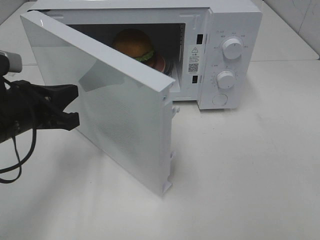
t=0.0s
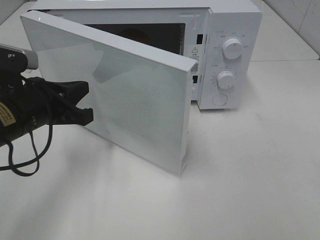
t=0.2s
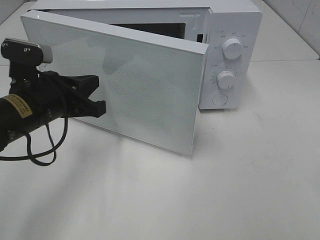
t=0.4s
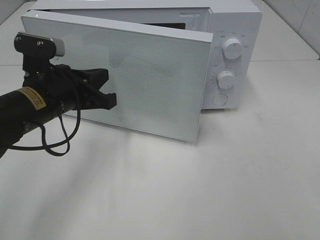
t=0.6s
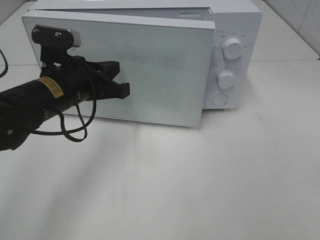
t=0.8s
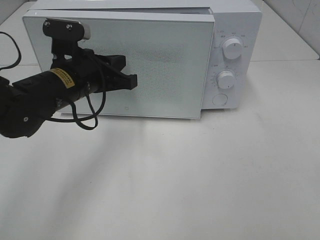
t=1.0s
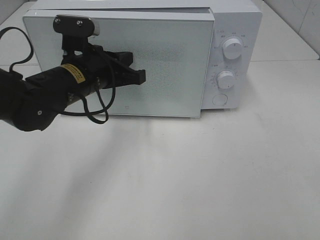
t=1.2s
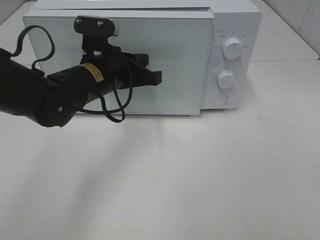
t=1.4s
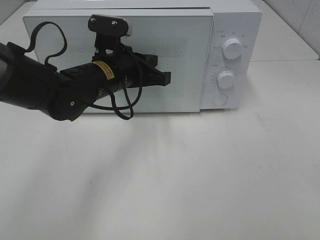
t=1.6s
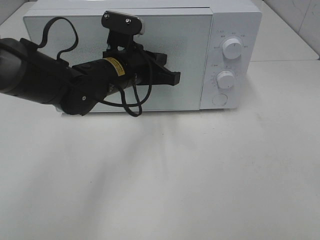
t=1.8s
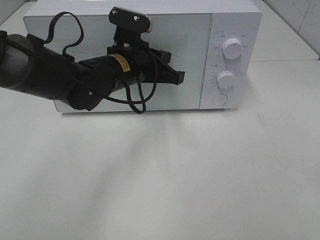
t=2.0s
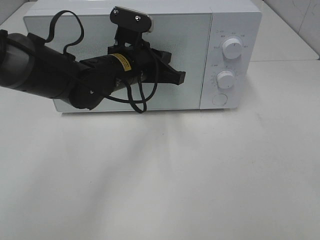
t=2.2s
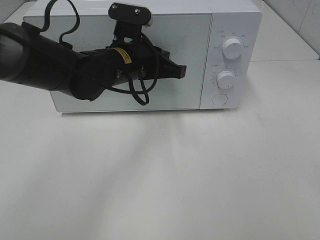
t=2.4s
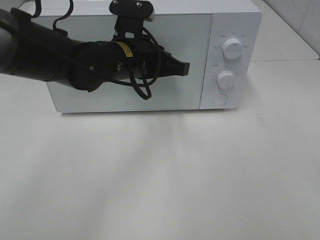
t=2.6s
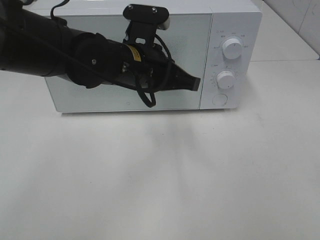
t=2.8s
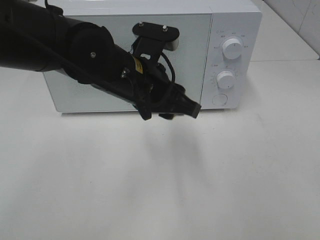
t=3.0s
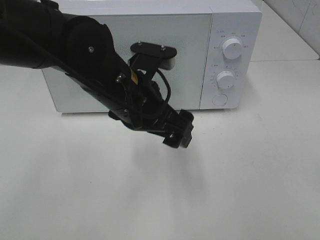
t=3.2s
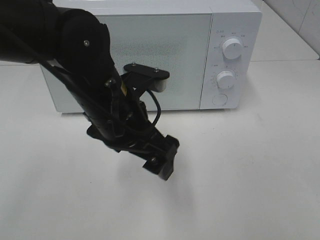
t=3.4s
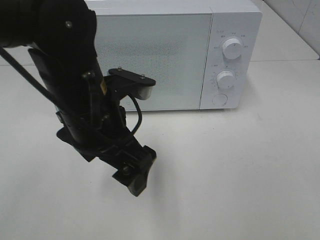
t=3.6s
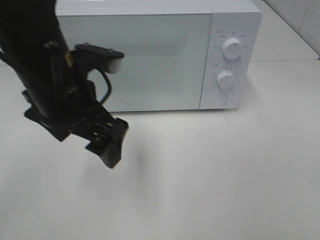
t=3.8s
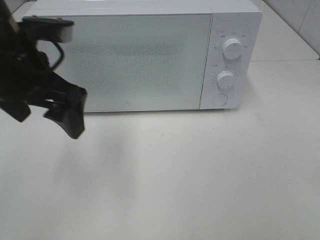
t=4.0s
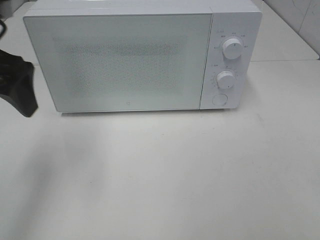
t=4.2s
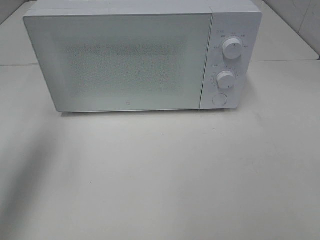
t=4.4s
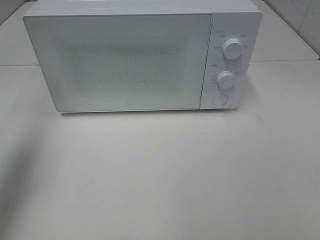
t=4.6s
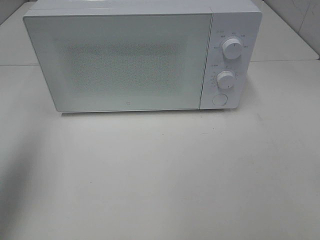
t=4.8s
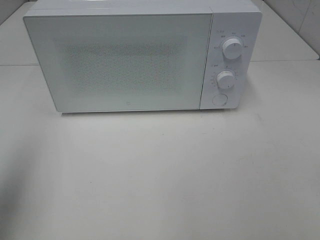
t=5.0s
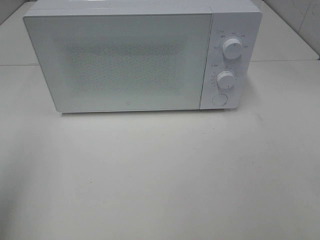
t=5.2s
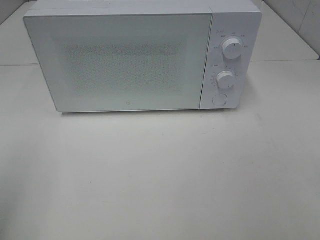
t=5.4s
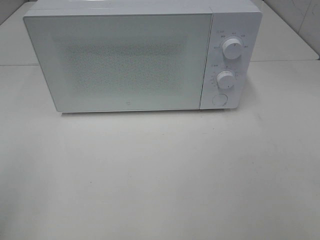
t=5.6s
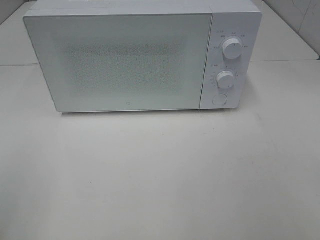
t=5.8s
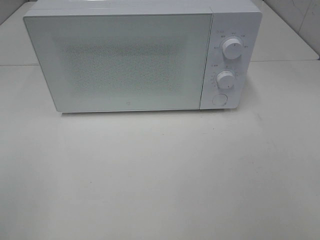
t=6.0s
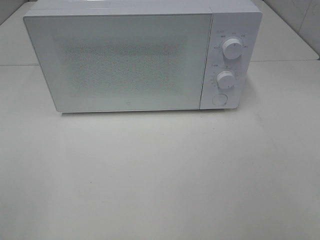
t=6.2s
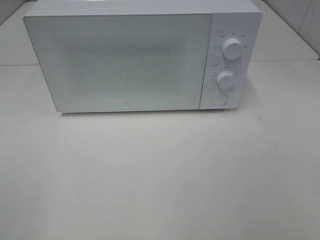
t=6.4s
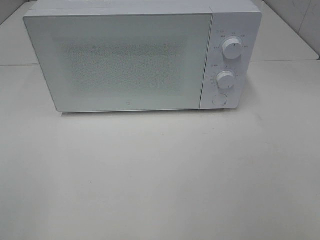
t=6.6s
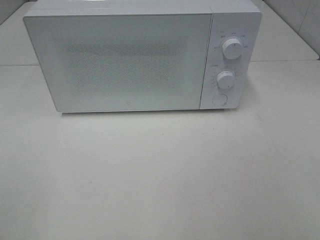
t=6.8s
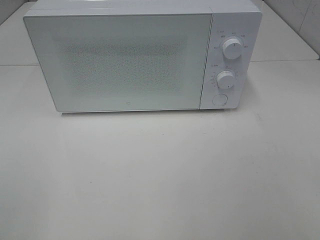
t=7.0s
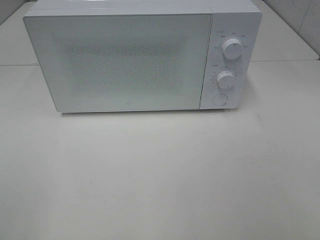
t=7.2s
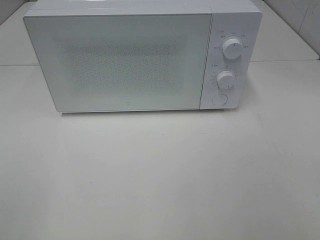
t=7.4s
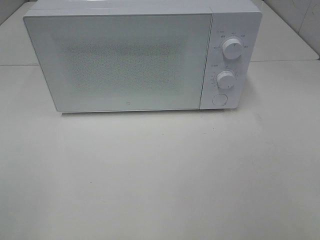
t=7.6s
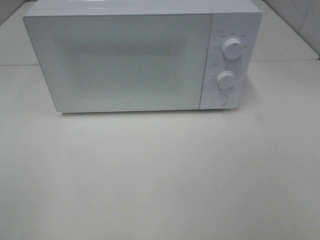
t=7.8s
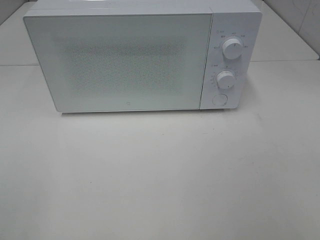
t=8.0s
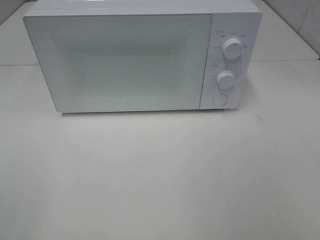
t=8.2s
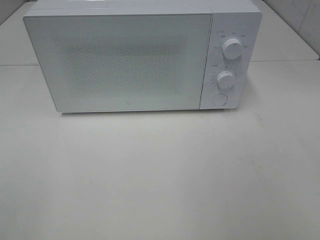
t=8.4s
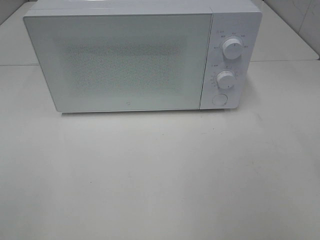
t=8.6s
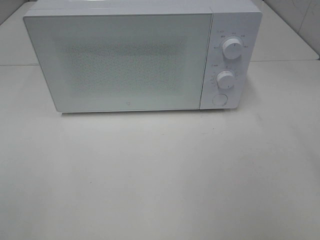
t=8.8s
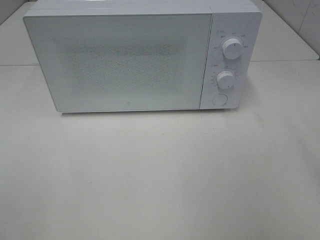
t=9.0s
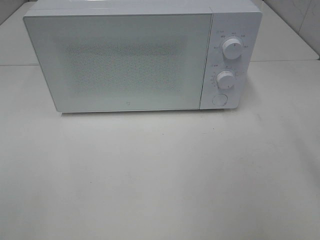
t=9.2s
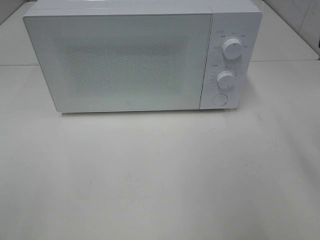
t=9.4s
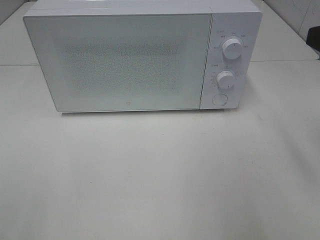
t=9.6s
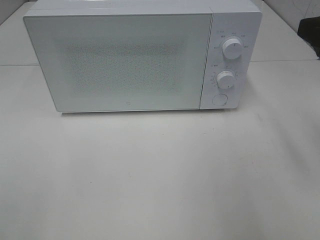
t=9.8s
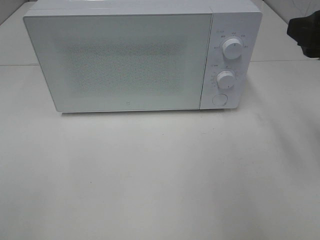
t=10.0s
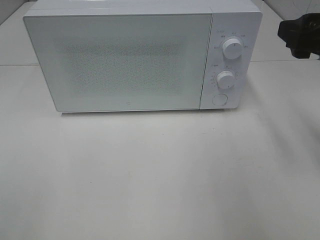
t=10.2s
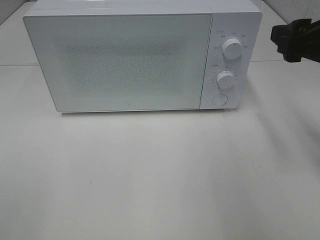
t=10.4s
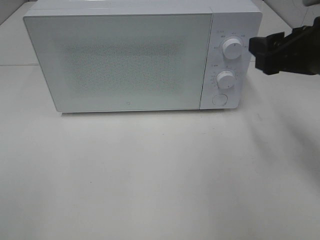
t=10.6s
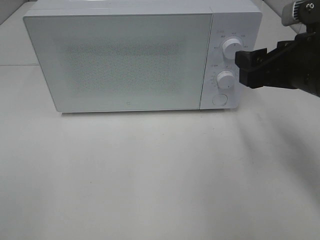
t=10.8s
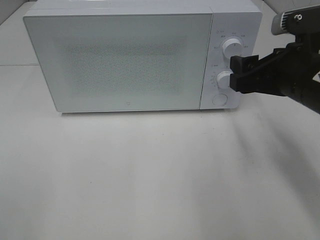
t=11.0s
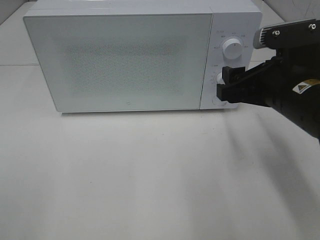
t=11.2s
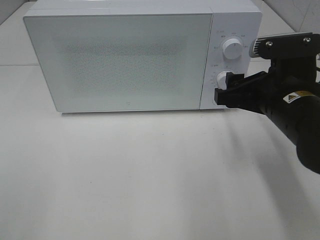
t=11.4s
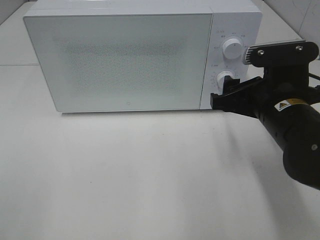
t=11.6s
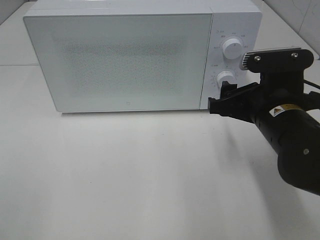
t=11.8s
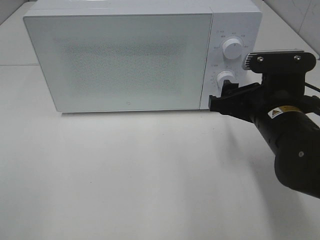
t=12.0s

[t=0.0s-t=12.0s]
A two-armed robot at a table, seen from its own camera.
Task of the whole recording: Heat the burger.
Step, t=0.0s to t=2.6s: Left hand: close the microwave door.
t=0.0s to t=1.6s: The left gripper heads to the right and forward, covering some 15 cm.
t=1.6s to t=3.0s: The left gripper is displaced backward by about 5 cm, and opens.
t=3.0s to t=4.4s: The left gripper moves to the left and upward, some 30 cm, and opens.
t=4.4s to t=6.0s: The left gripper is displaced backward by about 25 cm.
t=9.0s to t=10.4s: The right gripper shifts roughly 15 cm forward and downward.
t=10.4s to t=12.0s: The right gripper goes about 15 cm downward and to the left.

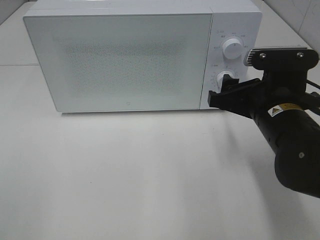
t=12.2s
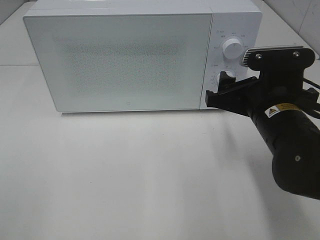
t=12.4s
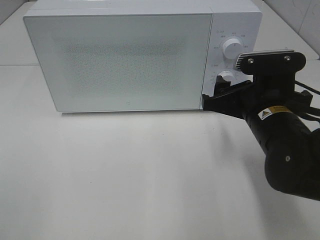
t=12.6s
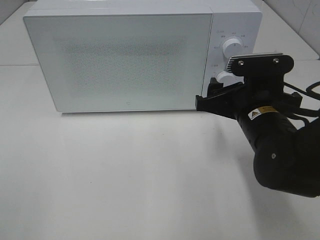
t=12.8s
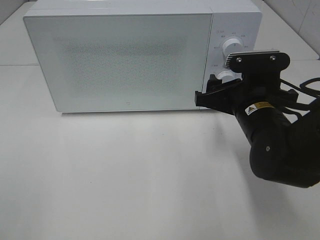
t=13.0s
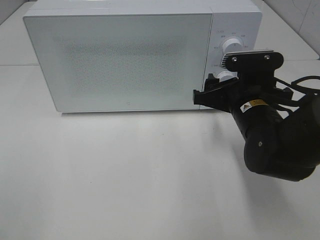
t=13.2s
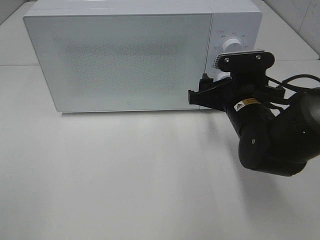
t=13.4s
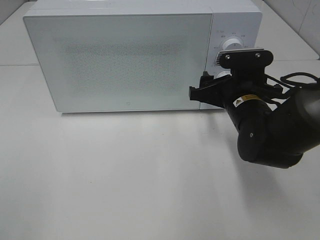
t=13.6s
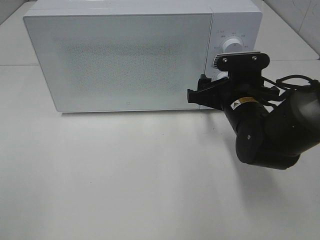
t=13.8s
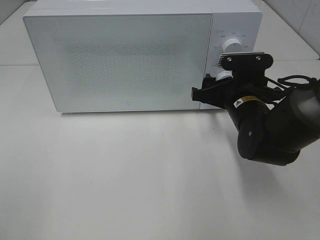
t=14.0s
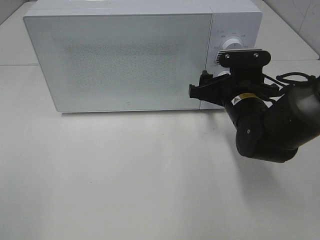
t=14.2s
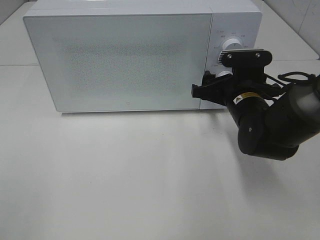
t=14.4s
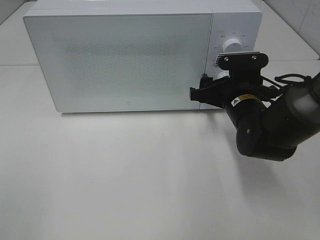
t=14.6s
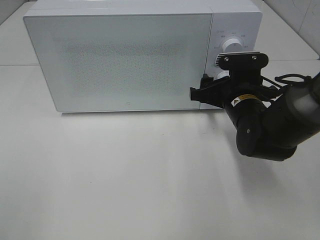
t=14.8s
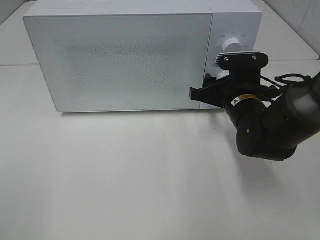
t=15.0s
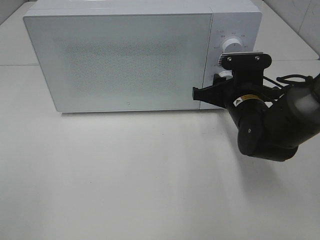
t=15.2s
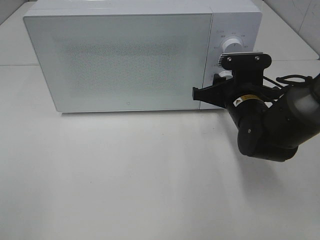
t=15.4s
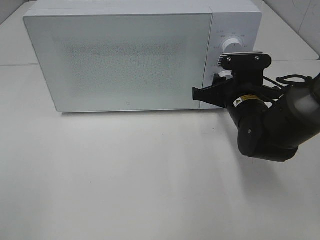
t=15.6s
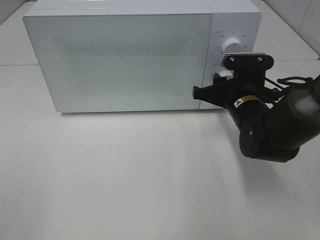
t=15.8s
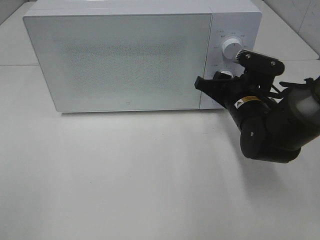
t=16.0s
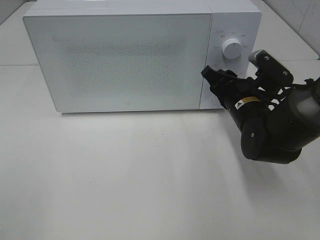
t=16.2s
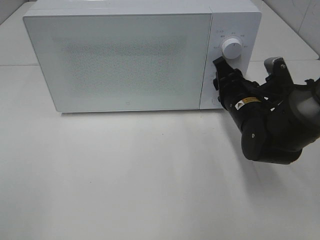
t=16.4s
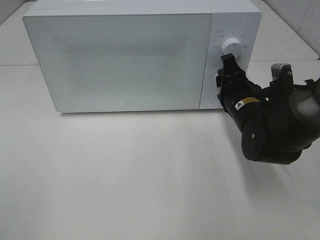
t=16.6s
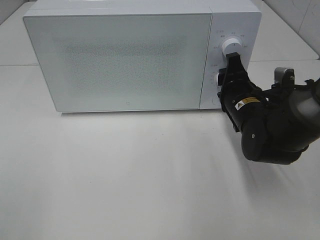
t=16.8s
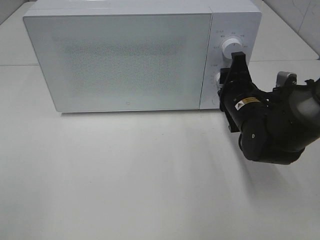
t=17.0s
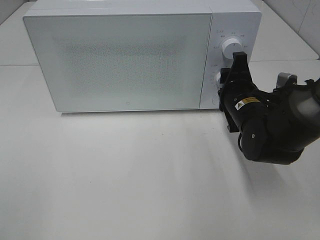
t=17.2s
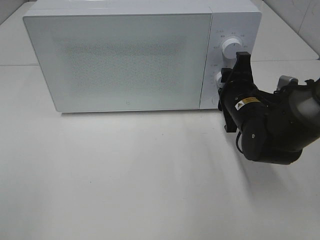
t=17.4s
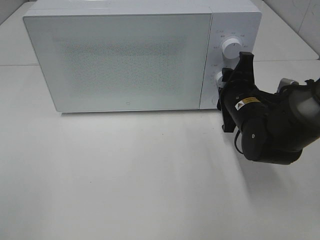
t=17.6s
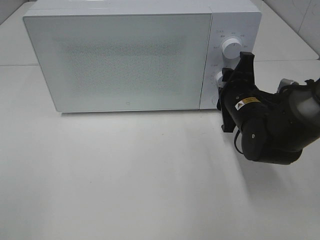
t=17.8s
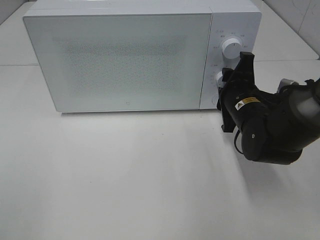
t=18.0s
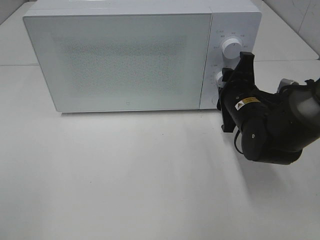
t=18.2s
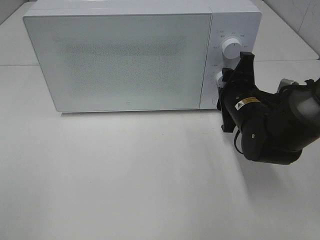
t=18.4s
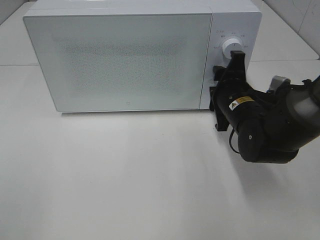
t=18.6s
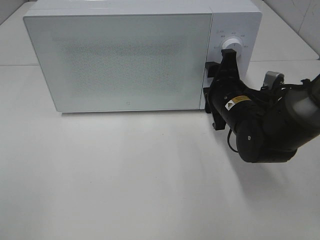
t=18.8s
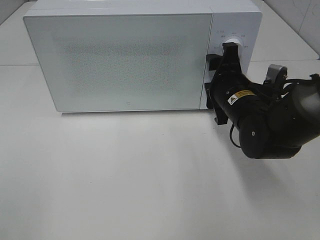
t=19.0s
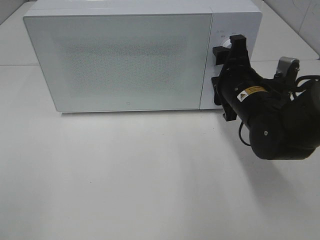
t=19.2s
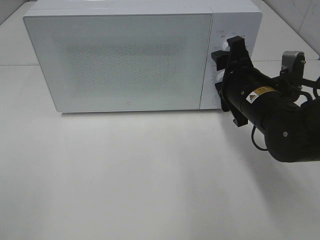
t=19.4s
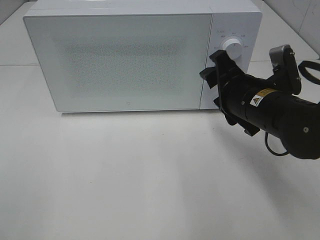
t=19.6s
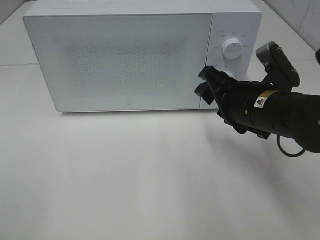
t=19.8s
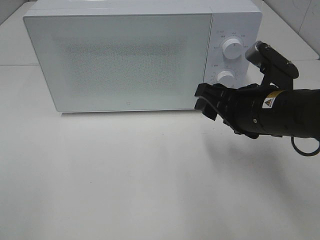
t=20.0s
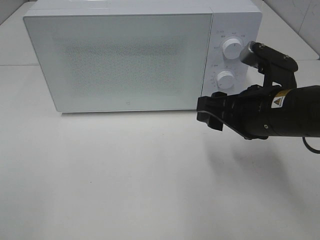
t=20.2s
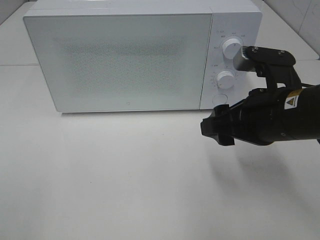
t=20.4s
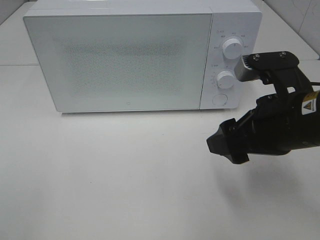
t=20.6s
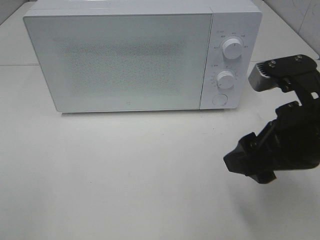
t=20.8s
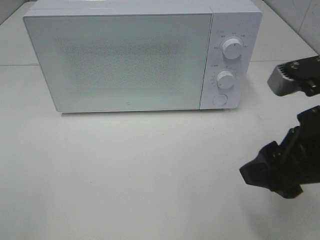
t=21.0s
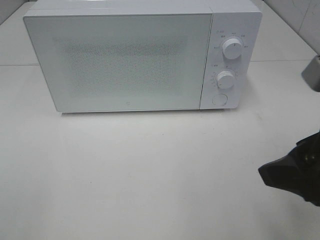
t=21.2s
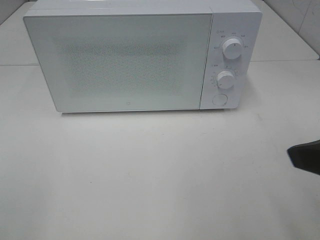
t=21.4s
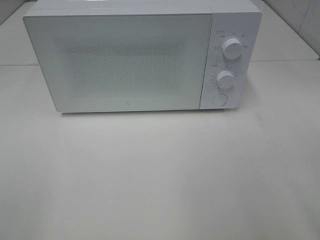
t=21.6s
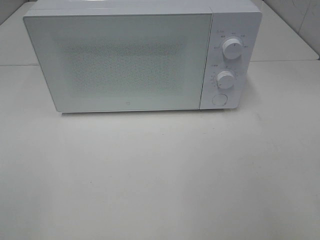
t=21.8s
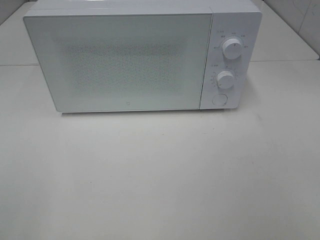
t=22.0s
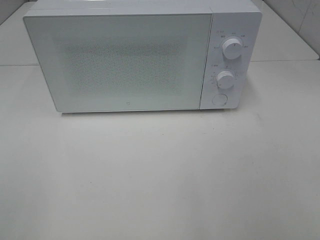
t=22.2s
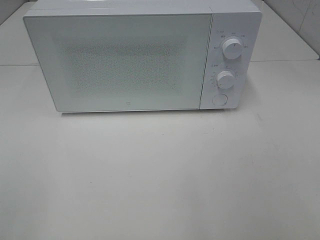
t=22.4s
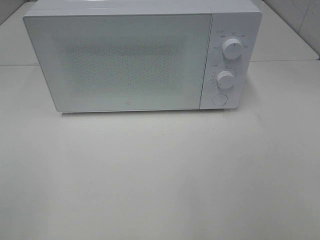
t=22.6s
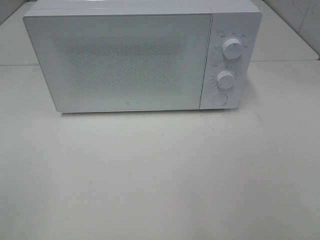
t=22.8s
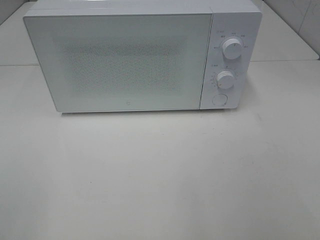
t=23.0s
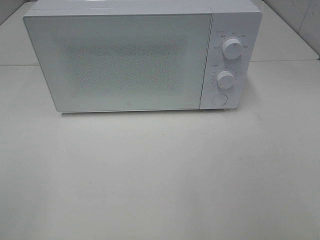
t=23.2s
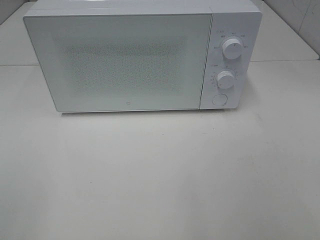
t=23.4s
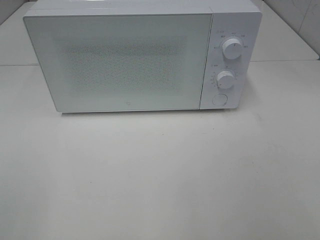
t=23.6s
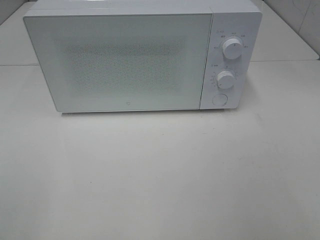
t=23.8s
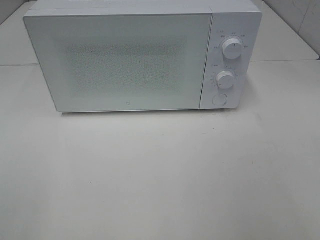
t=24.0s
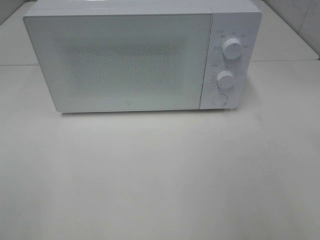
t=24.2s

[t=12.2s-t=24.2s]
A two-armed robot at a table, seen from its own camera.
Task of the whole recording: Heat the burger.
Step, t=12.2s to t=18.6s: Right hand: twist timer button.
t=12.2s to t=13.8s: The right gripper travels forward by roughly 5 cm.
t=13.8s to t=15.2s: The right gripper closes its fingers.
t=18.2s to t=19.8s: The right gripper moves backward and upward, some 10 cm.
t=19.8s to t=21.2s: The right gripper shifts some 15 cm backward, upward and to the right.
t=21.2s to t=22.6s: The right gripper heads backward and to the right, covering about 15 cm.
